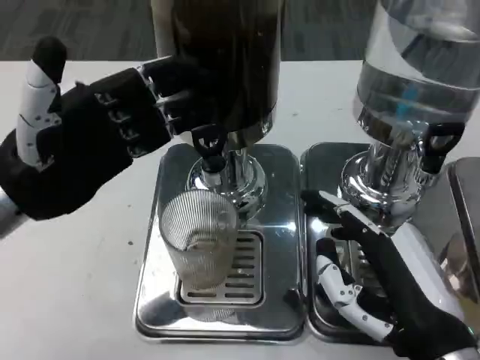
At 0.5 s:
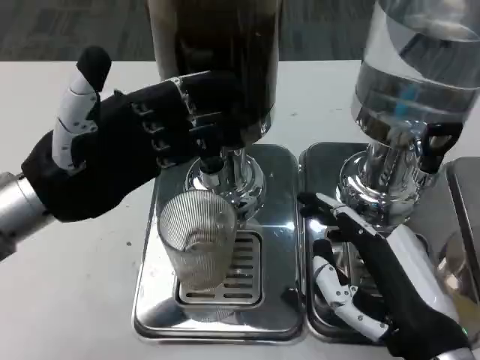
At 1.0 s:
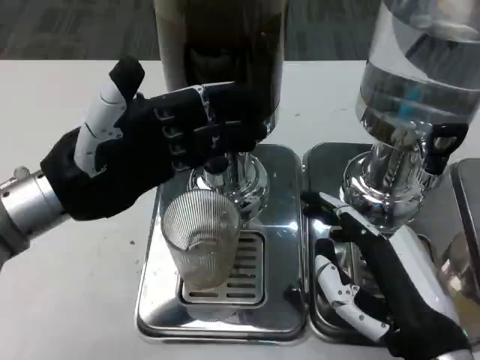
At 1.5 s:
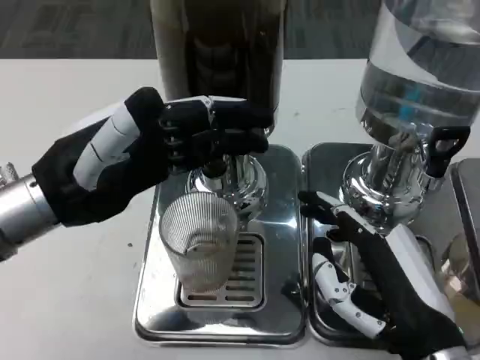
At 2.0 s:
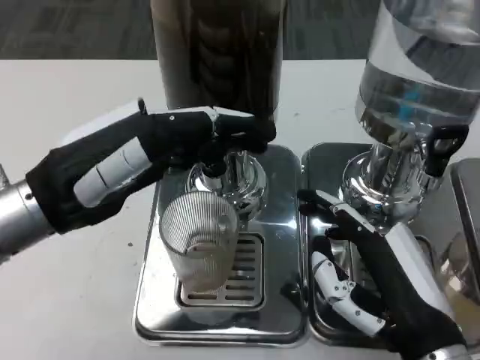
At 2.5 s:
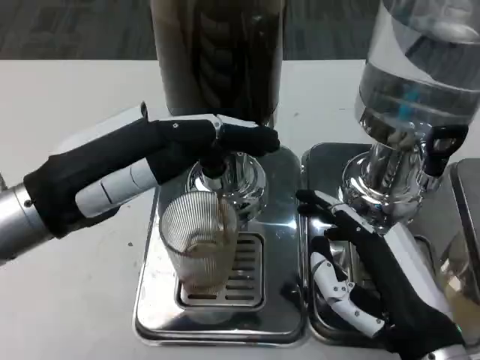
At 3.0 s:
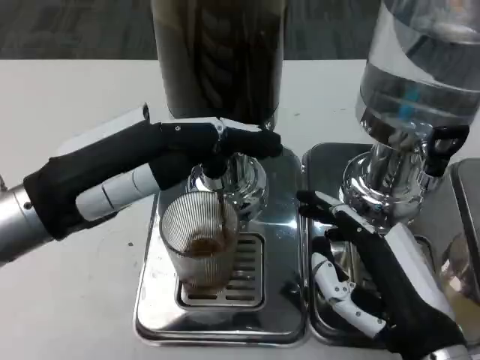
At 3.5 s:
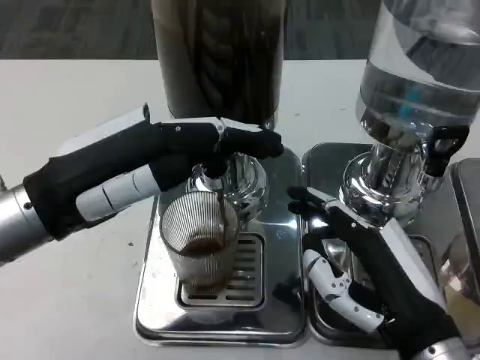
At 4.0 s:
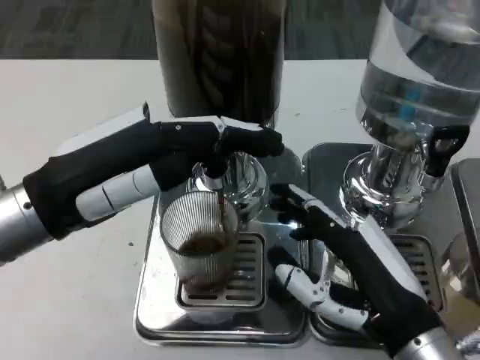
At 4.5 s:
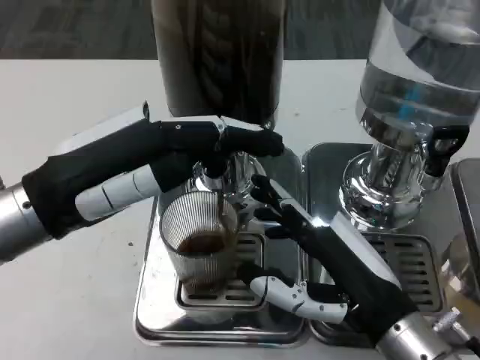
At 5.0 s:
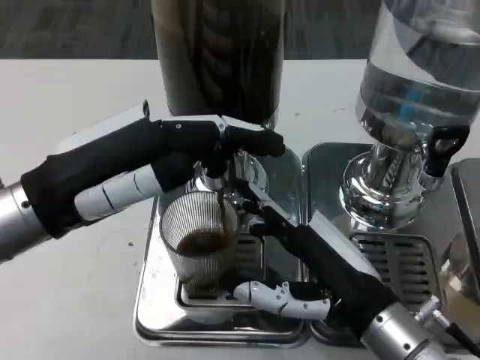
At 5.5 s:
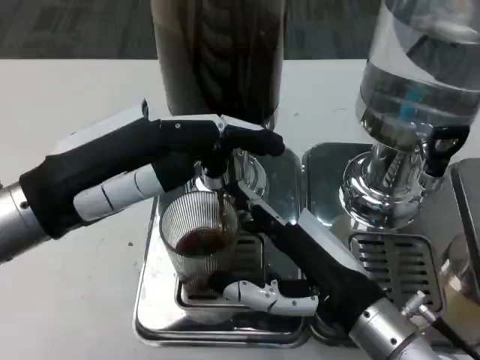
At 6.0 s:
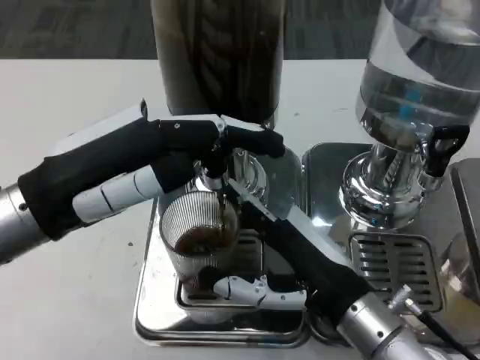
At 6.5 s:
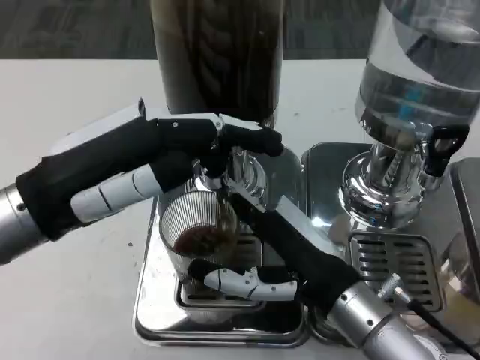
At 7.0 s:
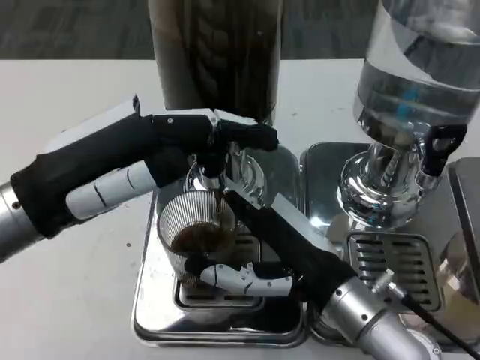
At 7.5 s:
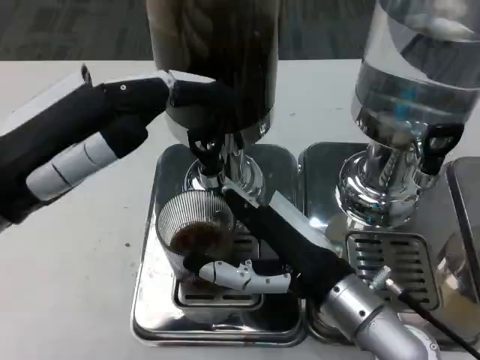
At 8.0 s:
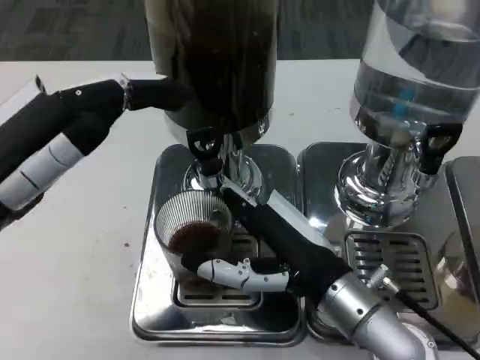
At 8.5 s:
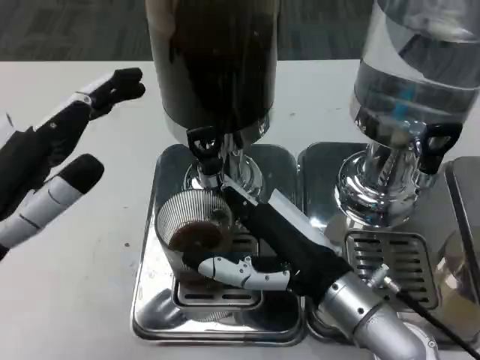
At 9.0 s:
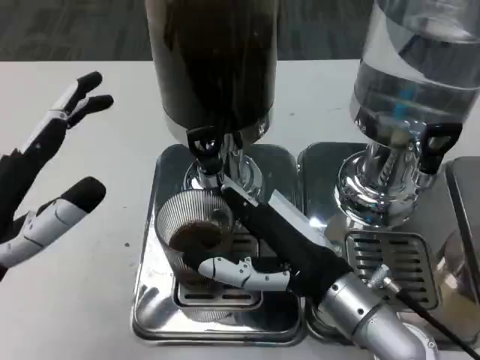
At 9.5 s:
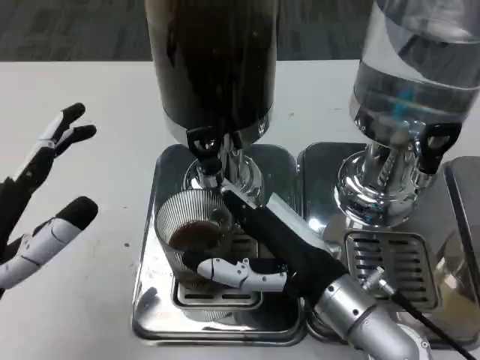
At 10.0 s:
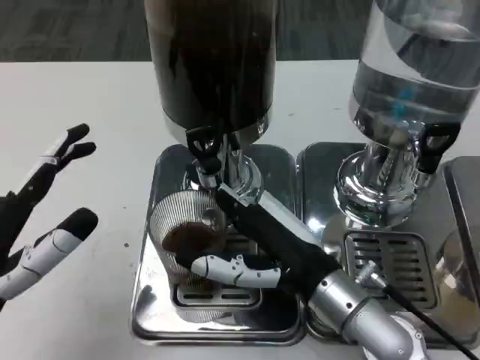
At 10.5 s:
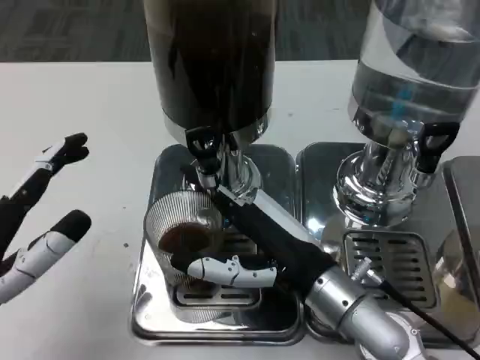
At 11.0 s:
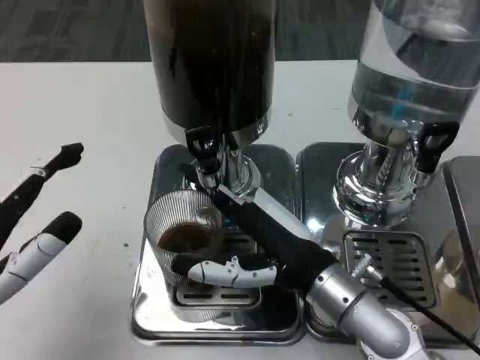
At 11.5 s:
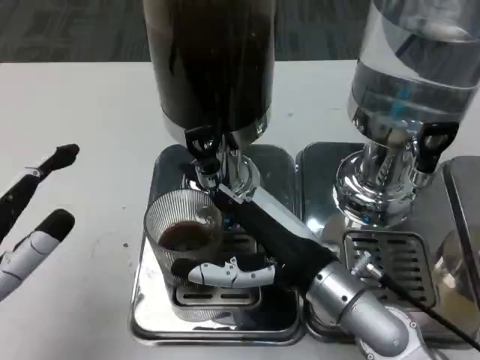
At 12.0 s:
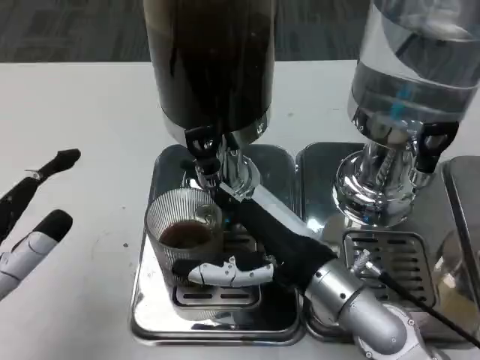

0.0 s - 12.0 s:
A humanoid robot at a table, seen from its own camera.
Task of the whole recording: Grasp the cup under the faucet to collect the drink, then remove the cup.
2.0 s - 4.0 s: The hands stay close to where they were, moving slightly.
4.0 s - 6.0 s: The right hand ends up about 5 cm from where it was.
8.0 s - 10.0 s: The left hand is displaced downward and backward by approximately 10 cm.
10.0 s - 12.0 s: The hands make only small movements.

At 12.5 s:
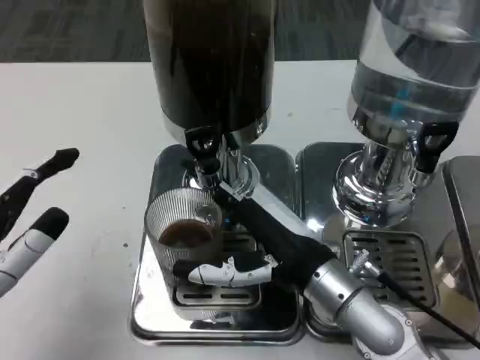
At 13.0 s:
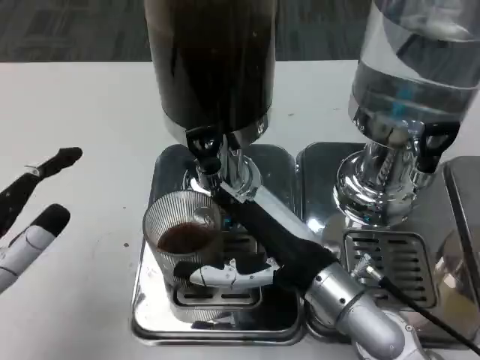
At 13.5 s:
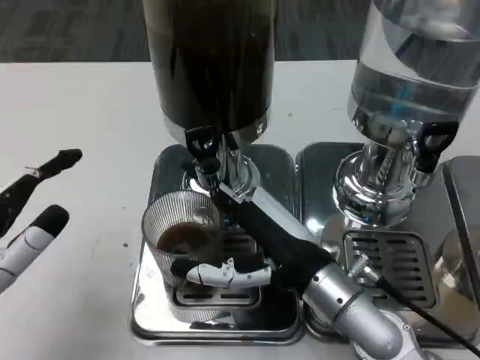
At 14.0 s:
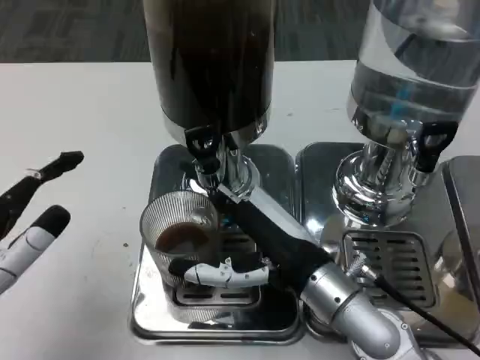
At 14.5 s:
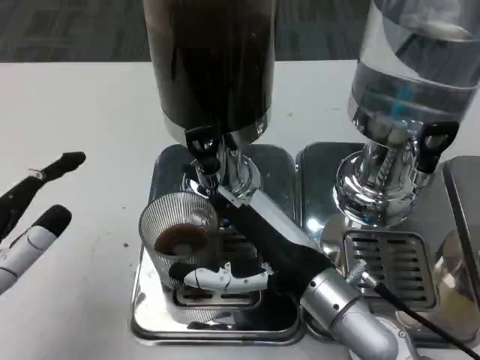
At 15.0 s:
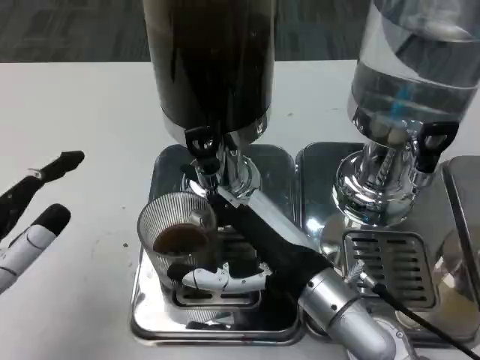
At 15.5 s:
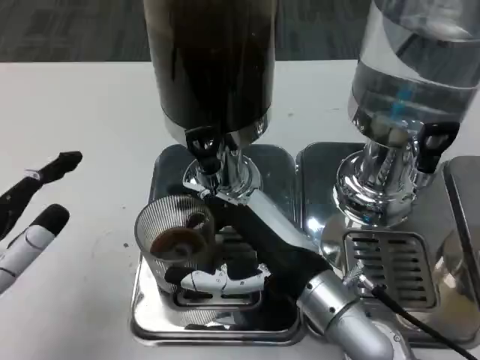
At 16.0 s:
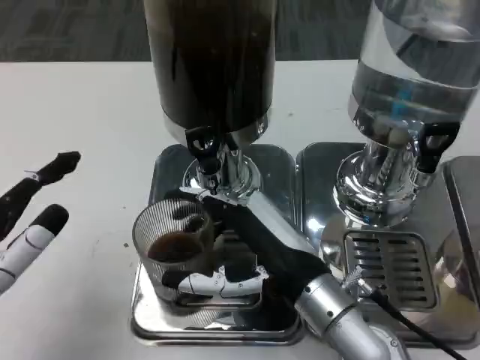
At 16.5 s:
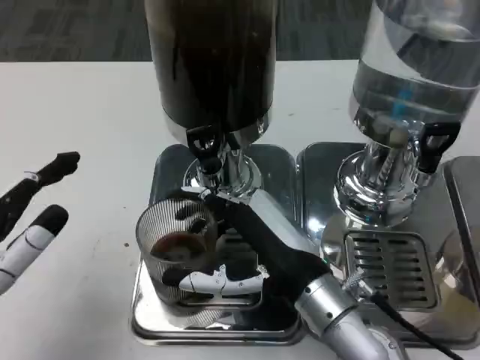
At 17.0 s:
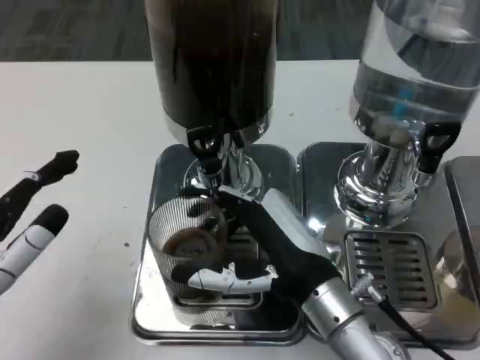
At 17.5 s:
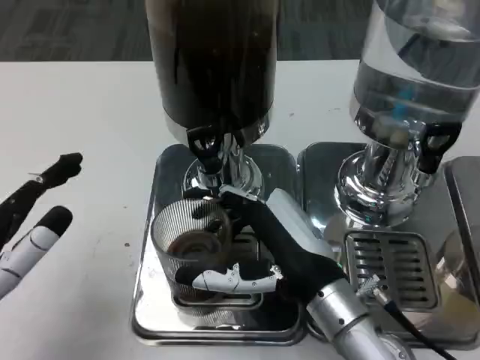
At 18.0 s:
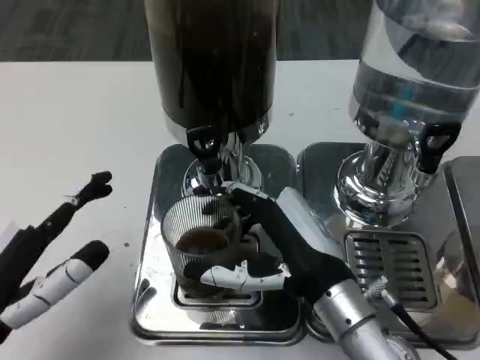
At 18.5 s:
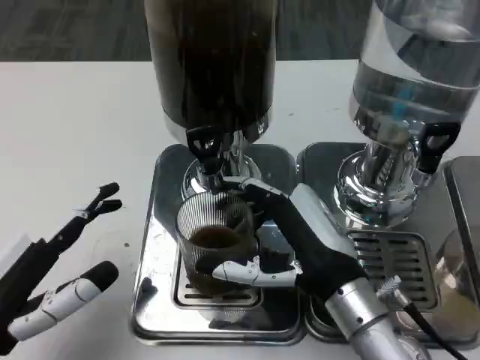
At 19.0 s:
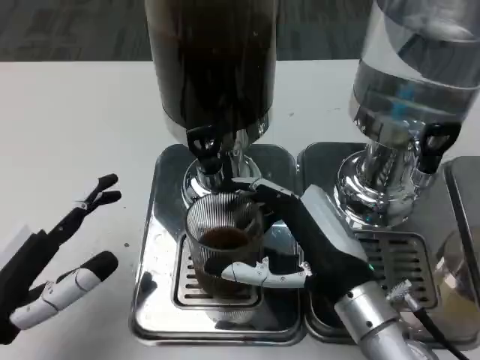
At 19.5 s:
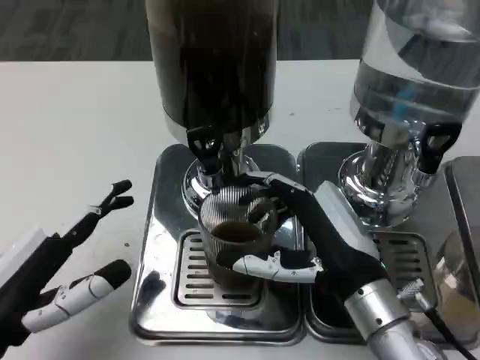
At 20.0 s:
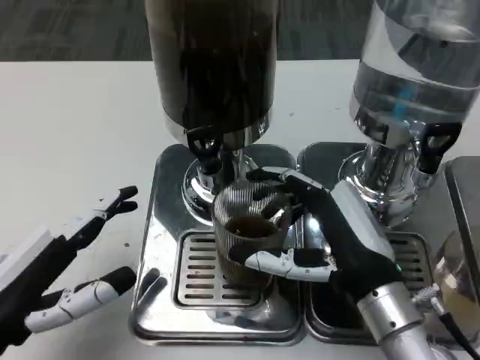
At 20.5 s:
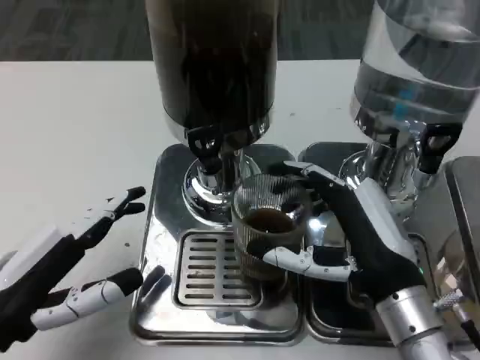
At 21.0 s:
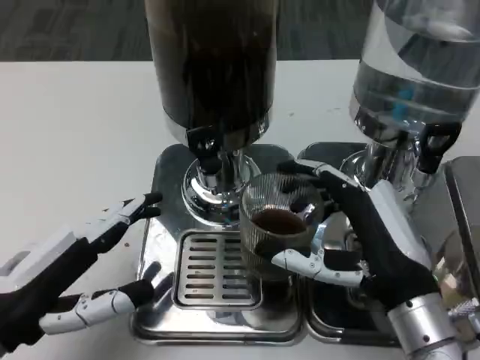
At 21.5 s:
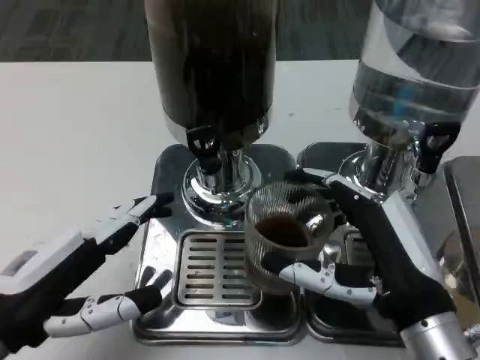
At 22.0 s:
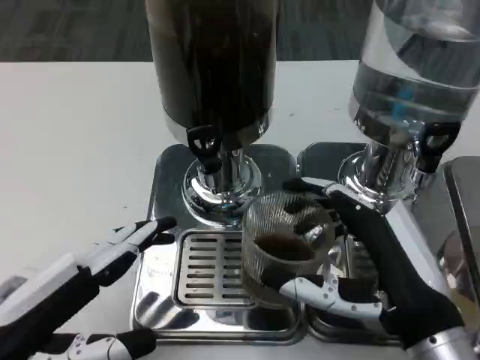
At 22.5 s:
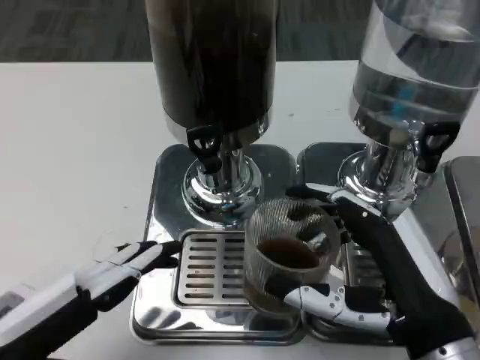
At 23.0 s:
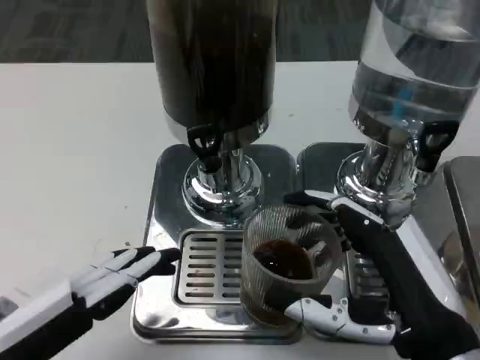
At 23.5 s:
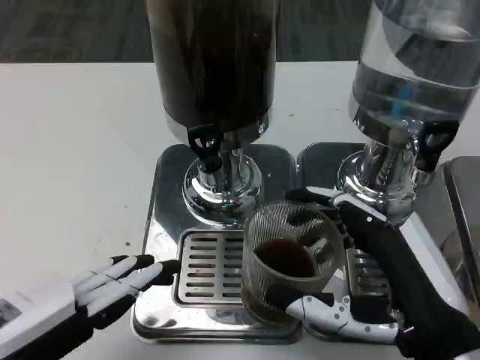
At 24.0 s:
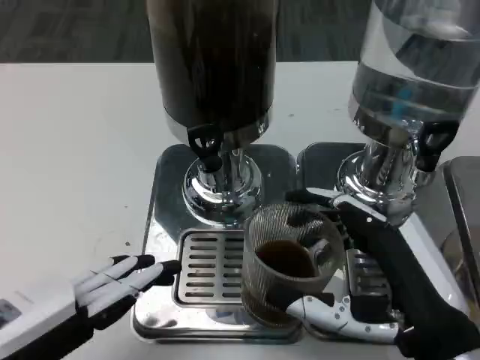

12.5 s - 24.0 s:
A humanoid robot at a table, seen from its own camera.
Task of the whole recording: Grasp the cup under the faucet to collect the drink, then remove the cup.
12.5 s - 14.5 s: Both hands stay put.
14.5 s - 16.5 s: The hands move only a little.
20.0 s - 22.0 s: The right hand travels backward by some 5 cm.

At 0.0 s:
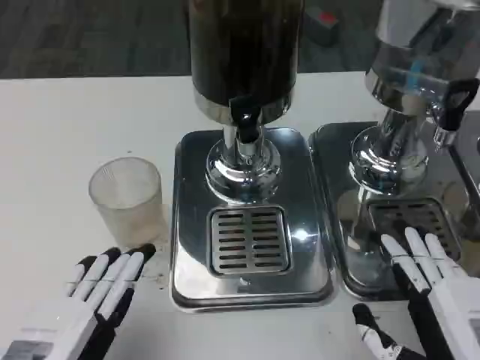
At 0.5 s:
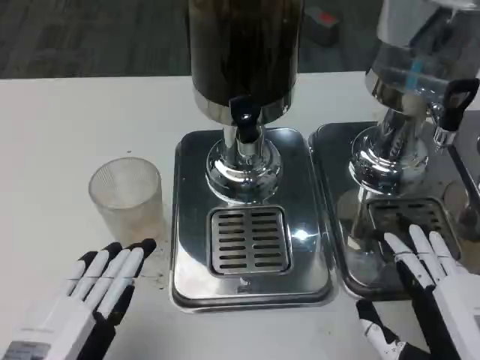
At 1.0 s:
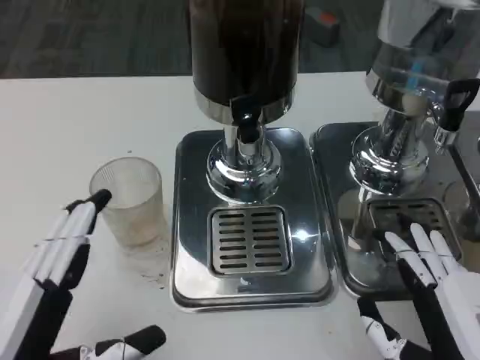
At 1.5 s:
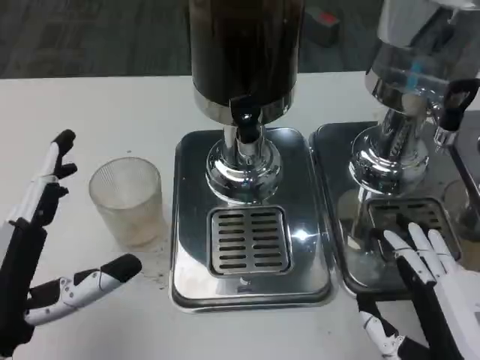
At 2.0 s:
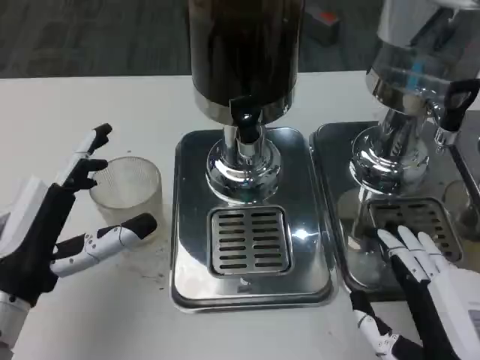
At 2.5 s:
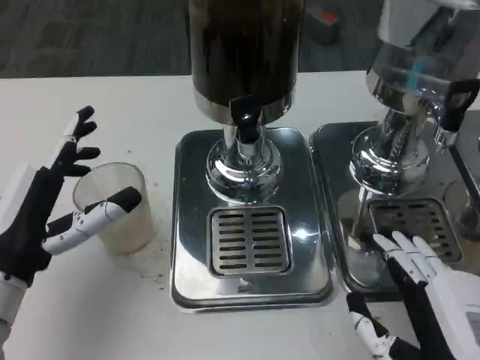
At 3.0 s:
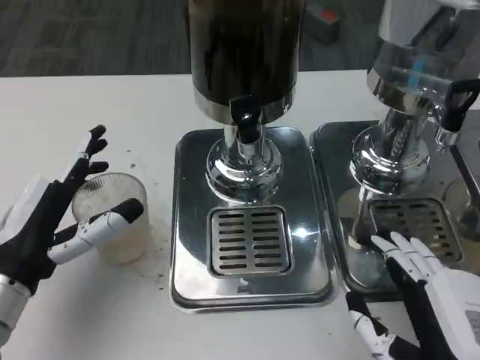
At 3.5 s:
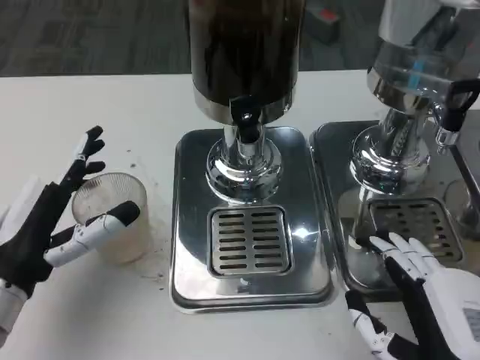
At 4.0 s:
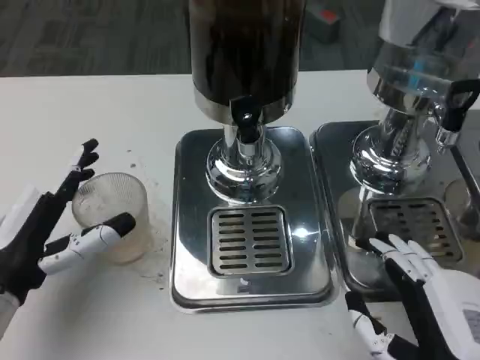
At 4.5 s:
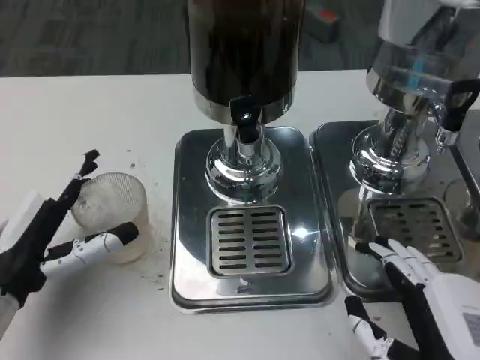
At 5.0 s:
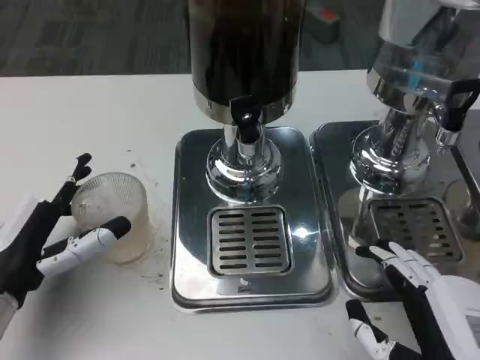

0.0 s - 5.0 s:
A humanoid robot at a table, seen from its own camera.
Task of the whole recording: Grasp the cup under the faucet to collect the drink, then remove the cup.
0.0 s - 2.5 s: The left hand heads forward, covering approximately 15 cm.
2.5 s - 5.0 s: The hands stay close to where they were, moving slightly.
